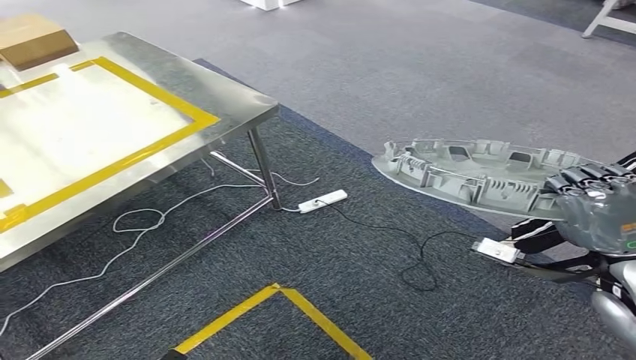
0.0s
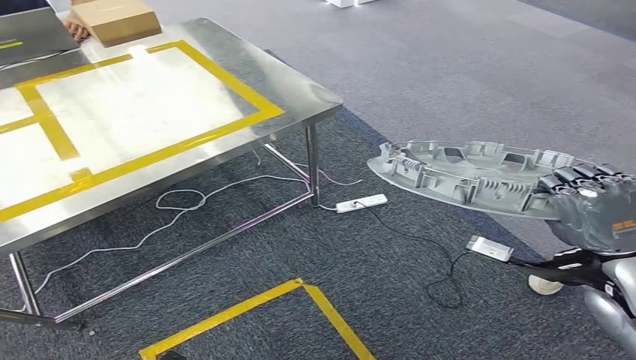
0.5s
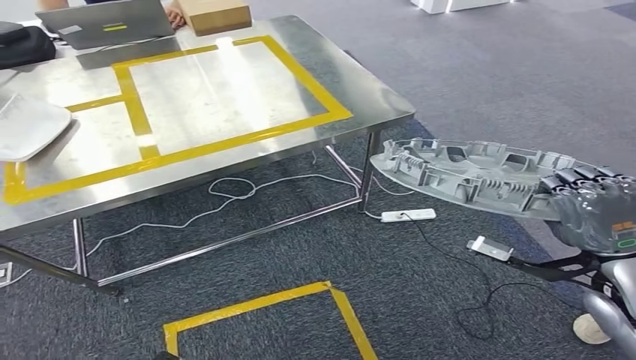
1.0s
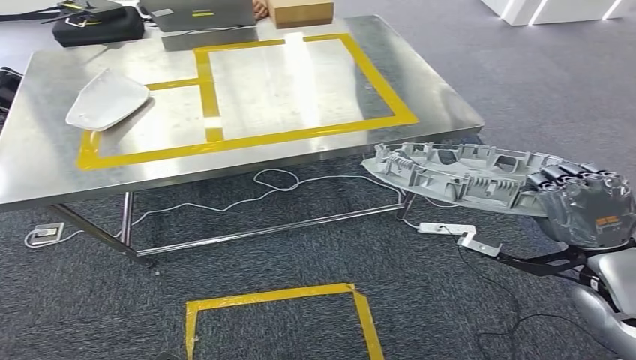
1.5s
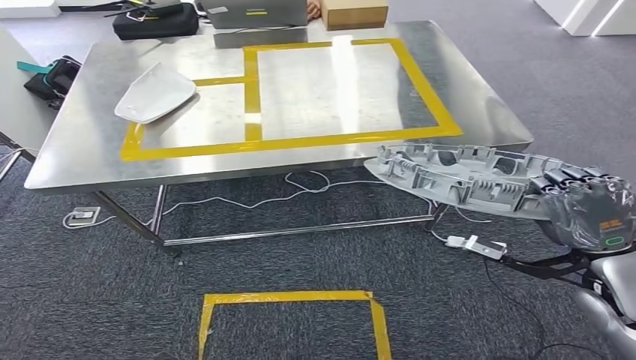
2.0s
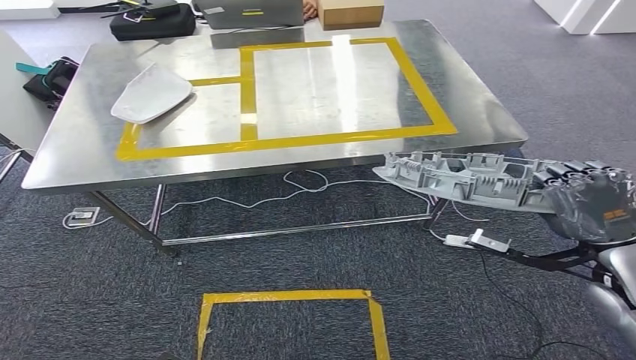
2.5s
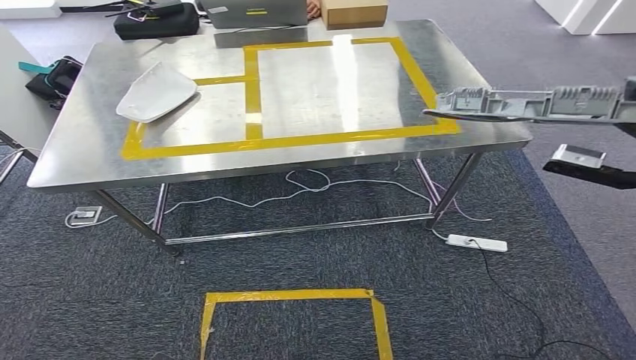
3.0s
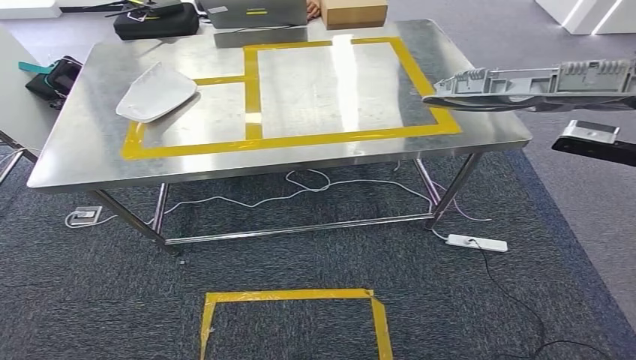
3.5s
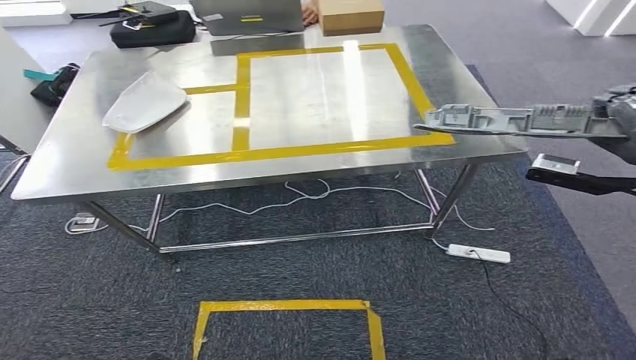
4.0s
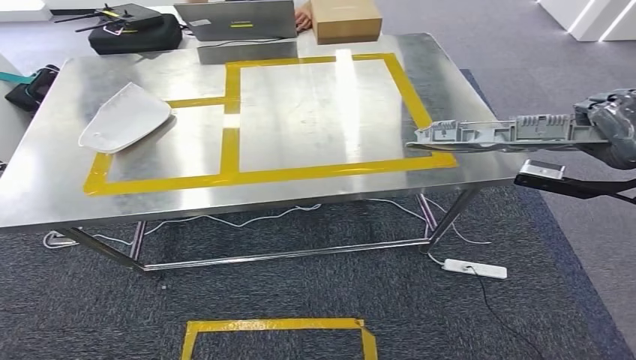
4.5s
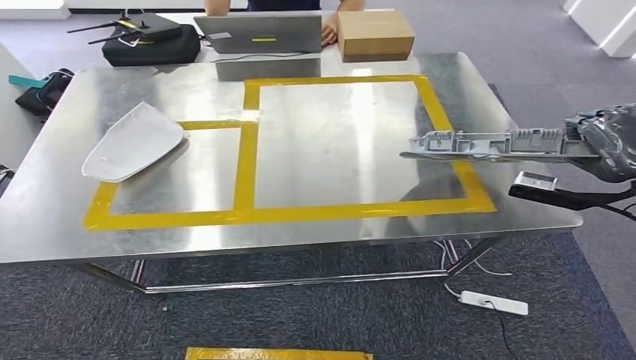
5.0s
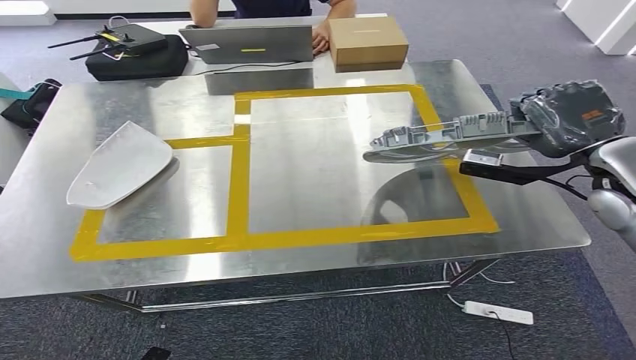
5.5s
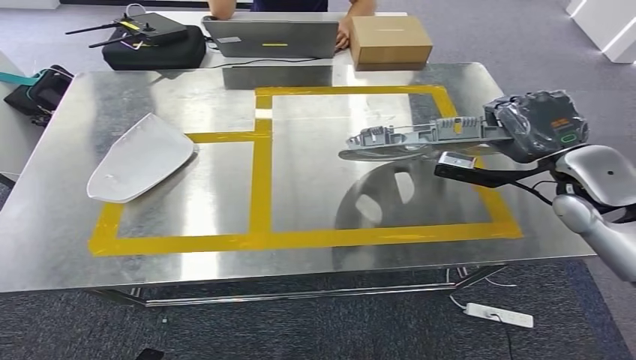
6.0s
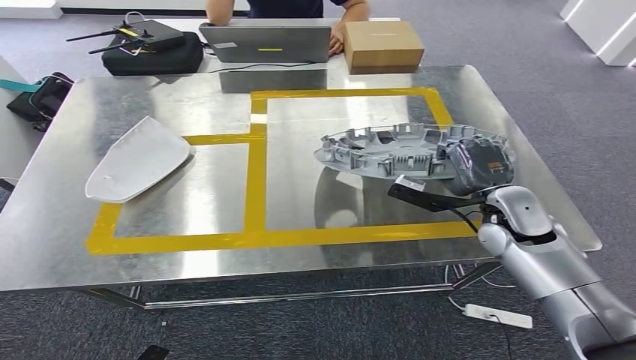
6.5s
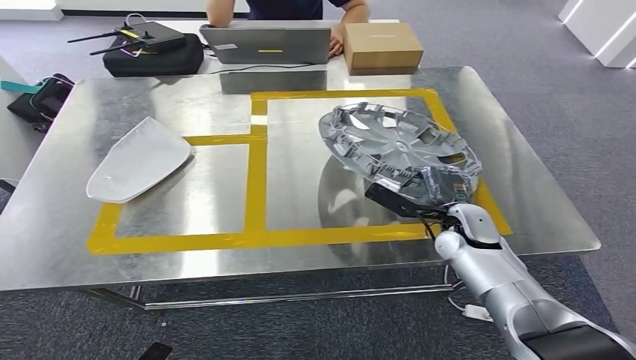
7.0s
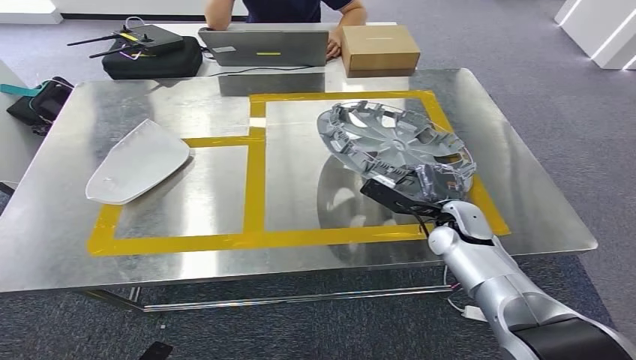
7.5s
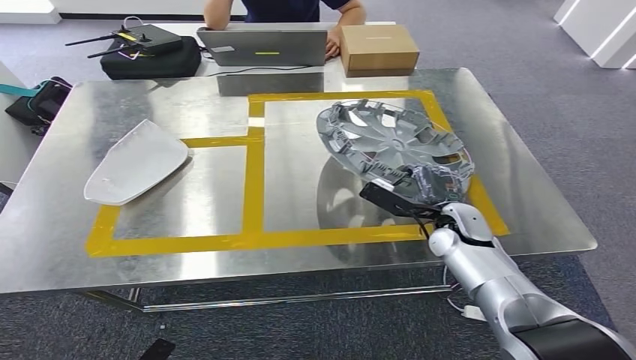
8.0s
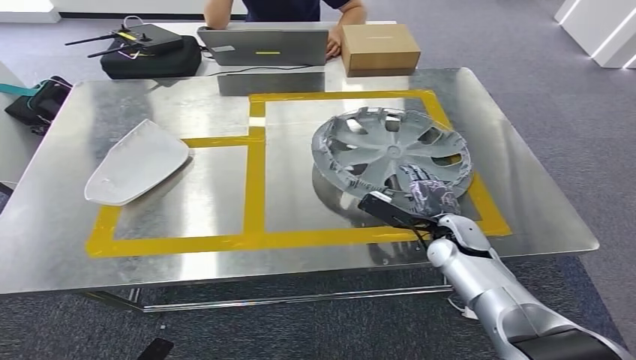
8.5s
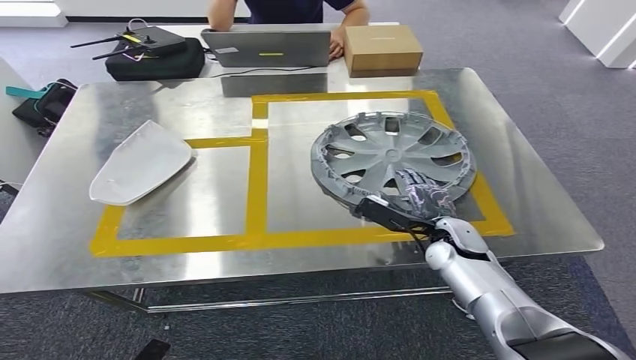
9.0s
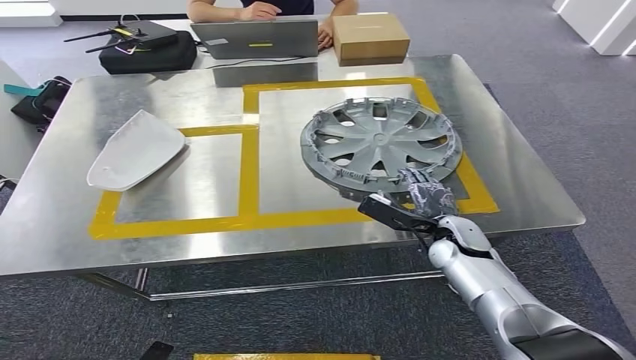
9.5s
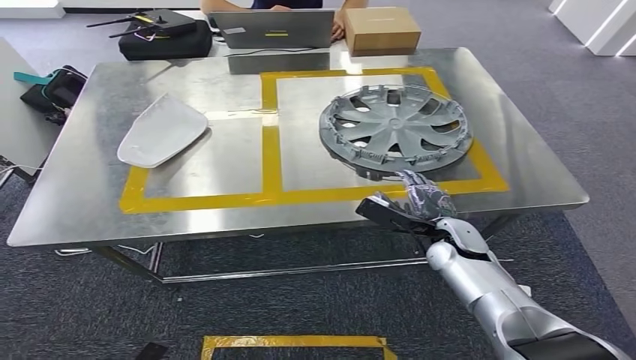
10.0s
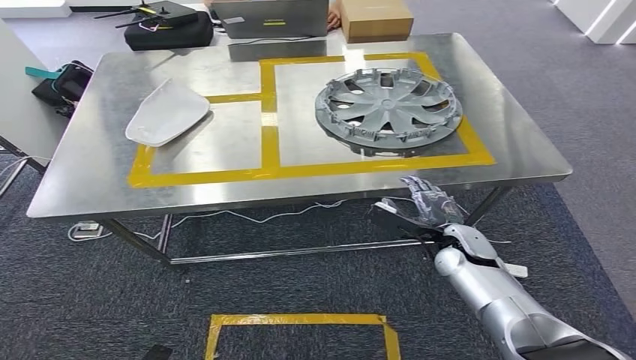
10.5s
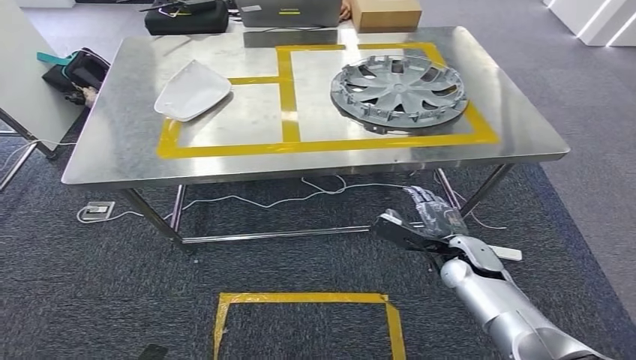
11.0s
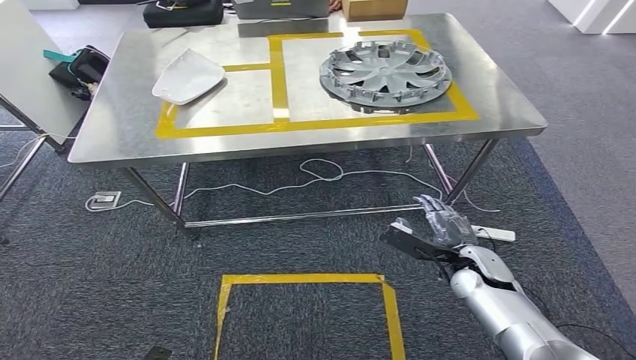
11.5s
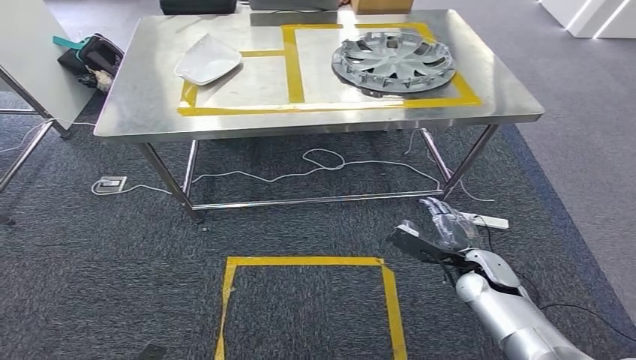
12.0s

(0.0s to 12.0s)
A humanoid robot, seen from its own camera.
Step, 0.0s - 2.5s: Move the small component to the workbench.
Step, 3.0s - 11.5s: Insert the small component into the corresponding slot on the workbench.

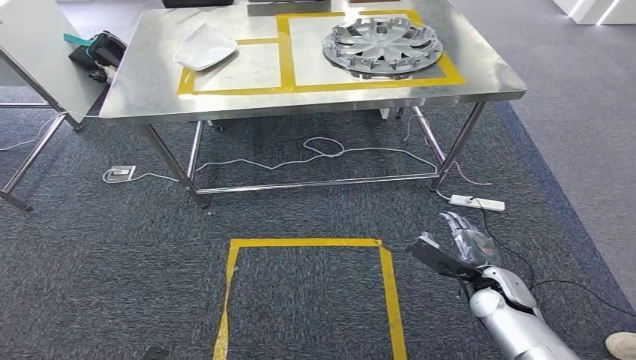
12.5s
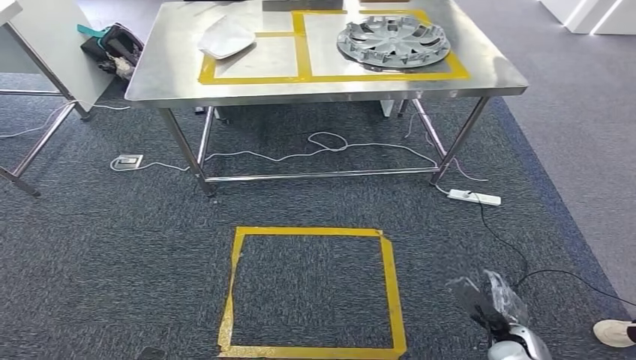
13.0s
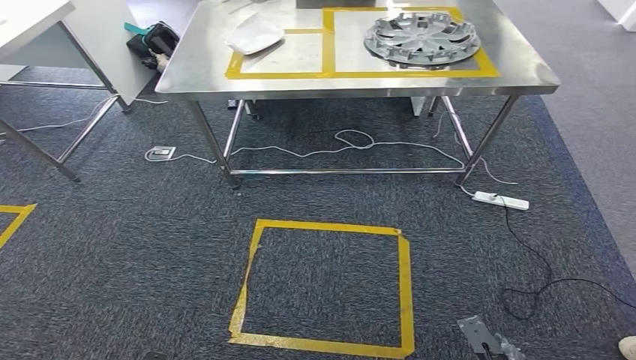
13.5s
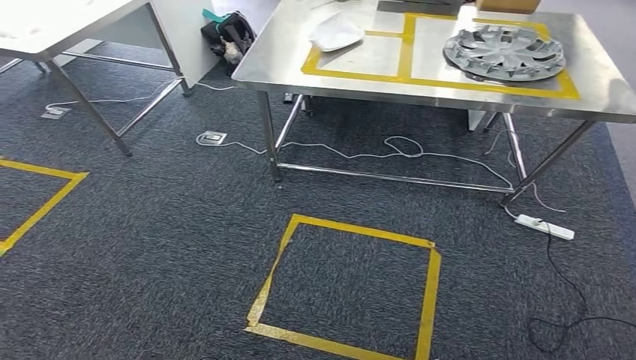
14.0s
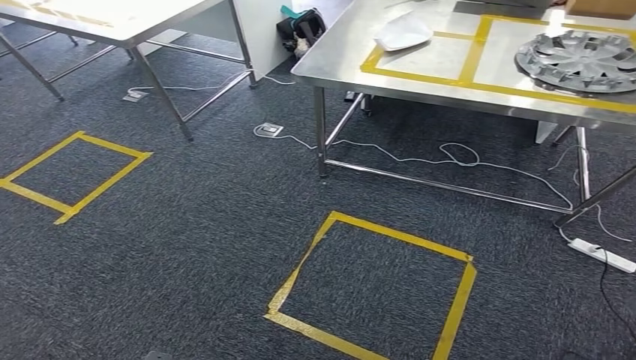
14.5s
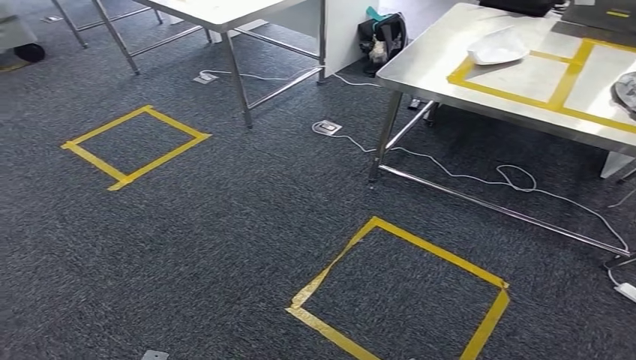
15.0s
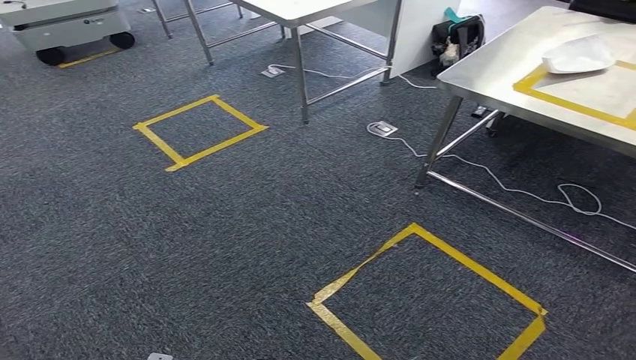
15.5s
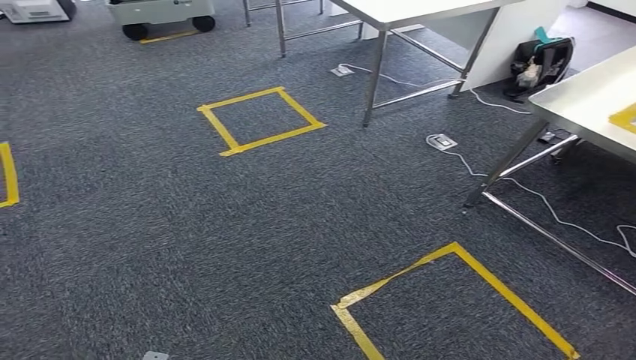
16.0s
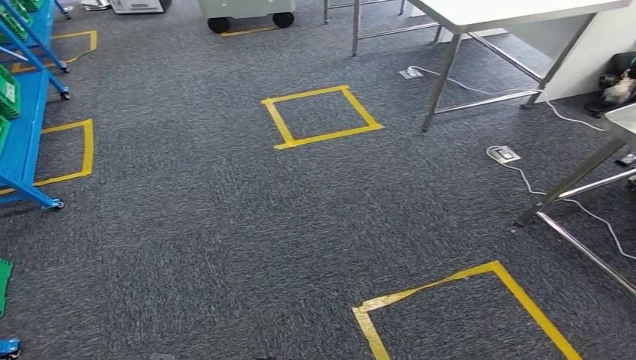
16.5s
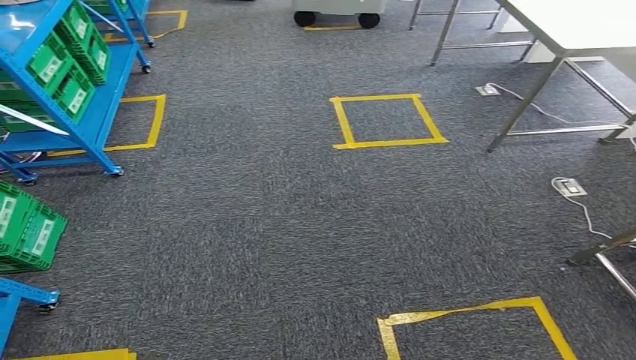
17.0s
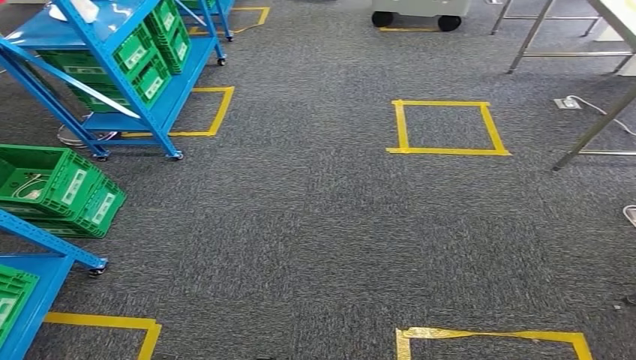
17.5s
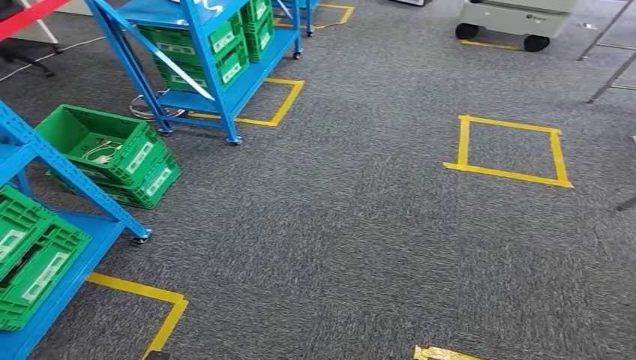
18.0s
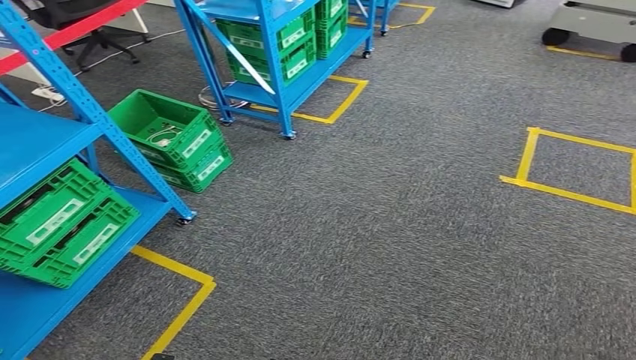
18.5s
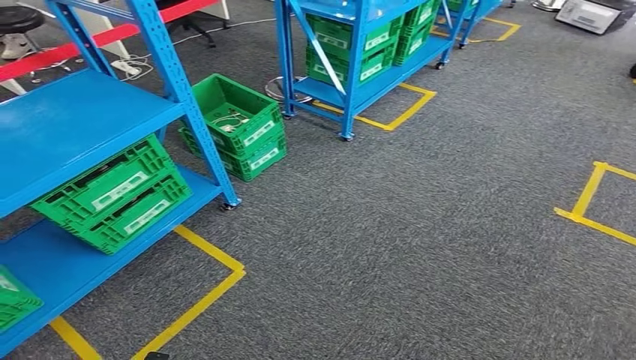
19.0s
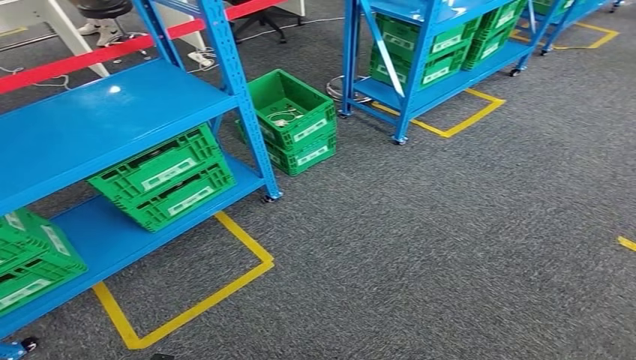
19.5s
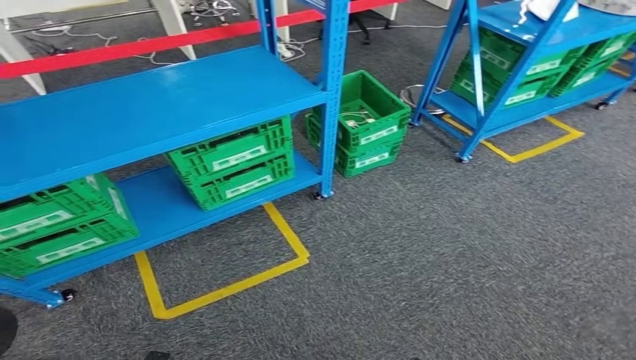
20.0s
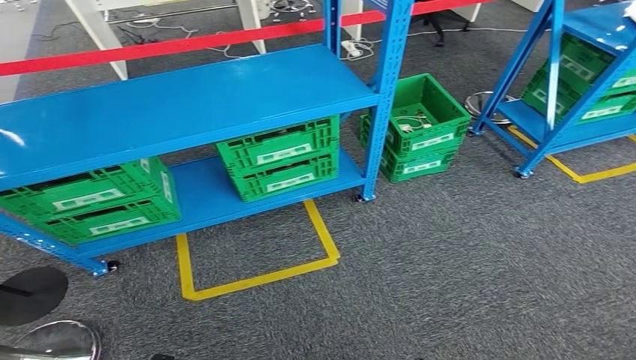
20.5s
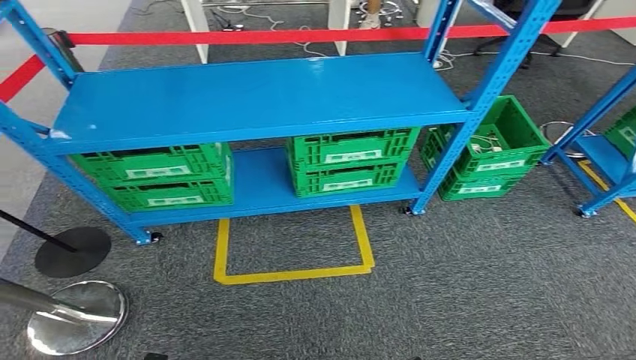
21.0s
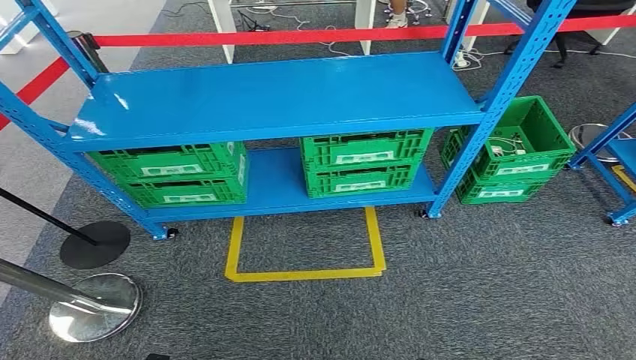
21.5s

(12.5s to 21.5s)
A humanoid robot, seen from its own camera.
Step, 12.5s - 21.0s: Return to the initial position at the workbench.
